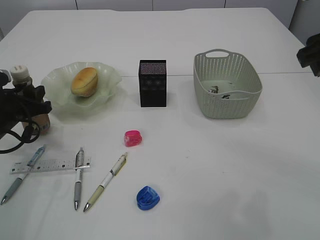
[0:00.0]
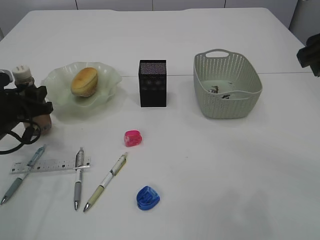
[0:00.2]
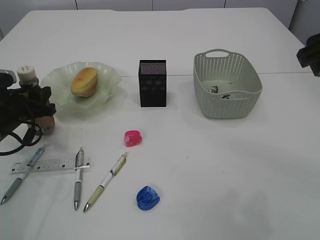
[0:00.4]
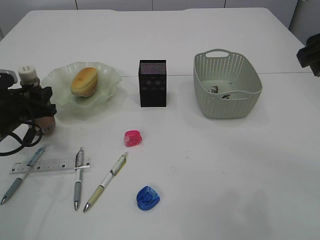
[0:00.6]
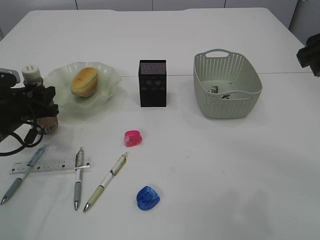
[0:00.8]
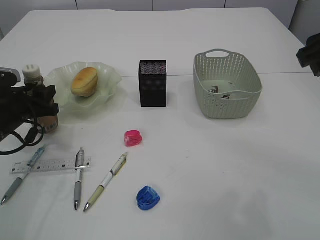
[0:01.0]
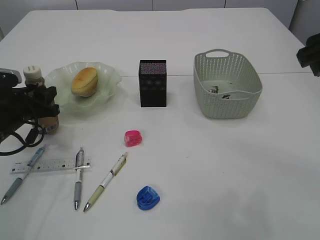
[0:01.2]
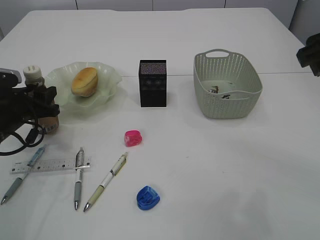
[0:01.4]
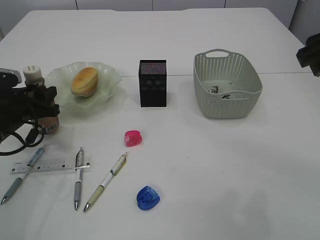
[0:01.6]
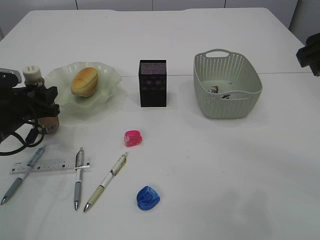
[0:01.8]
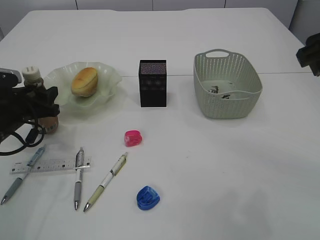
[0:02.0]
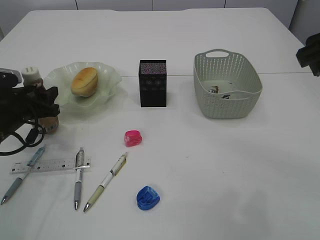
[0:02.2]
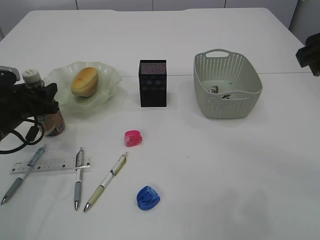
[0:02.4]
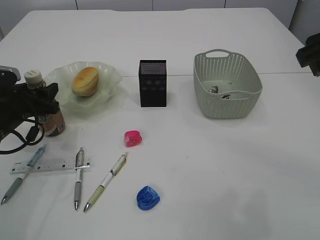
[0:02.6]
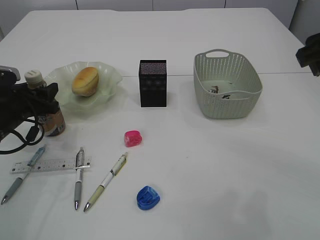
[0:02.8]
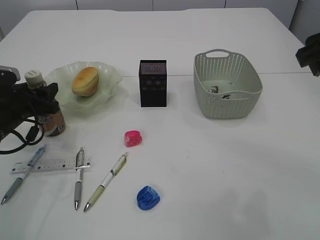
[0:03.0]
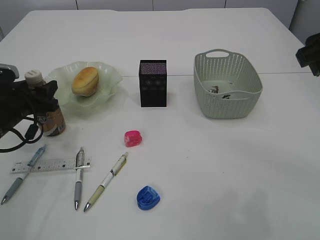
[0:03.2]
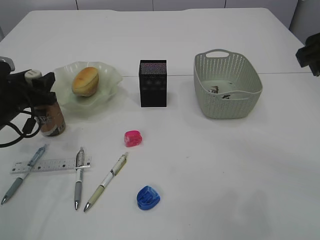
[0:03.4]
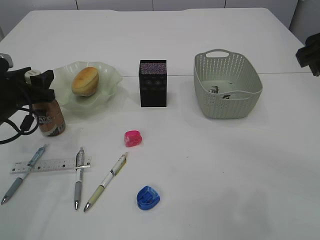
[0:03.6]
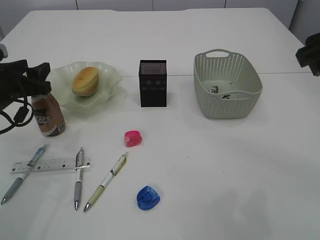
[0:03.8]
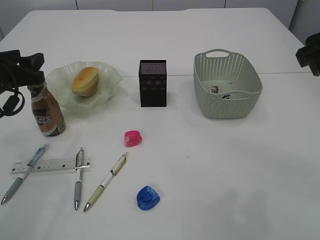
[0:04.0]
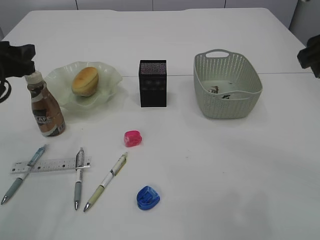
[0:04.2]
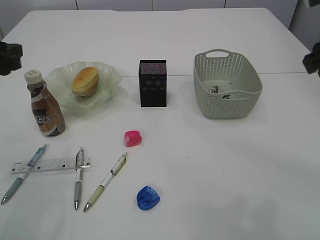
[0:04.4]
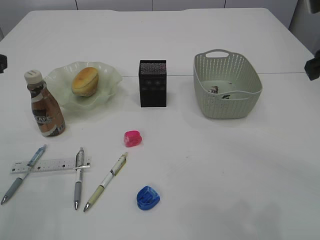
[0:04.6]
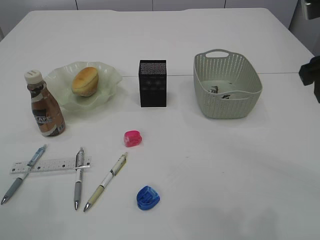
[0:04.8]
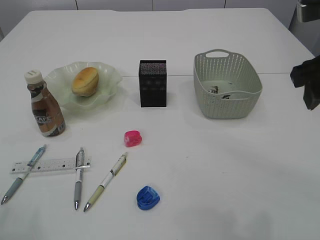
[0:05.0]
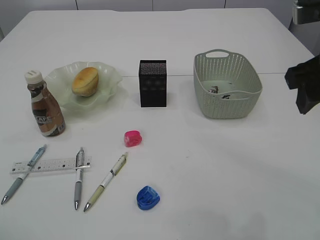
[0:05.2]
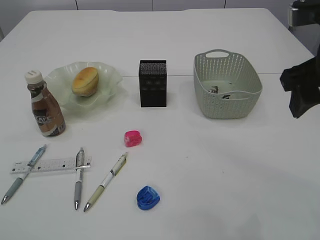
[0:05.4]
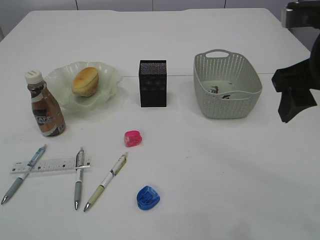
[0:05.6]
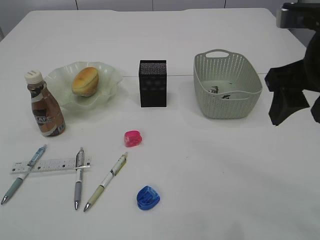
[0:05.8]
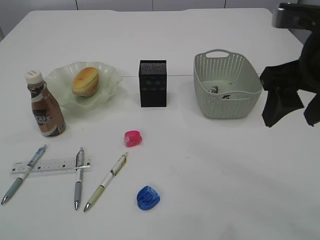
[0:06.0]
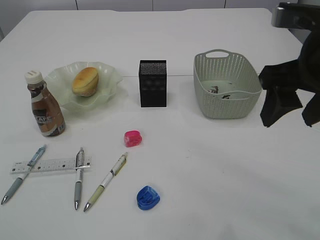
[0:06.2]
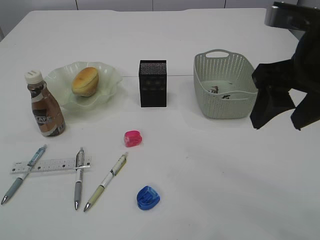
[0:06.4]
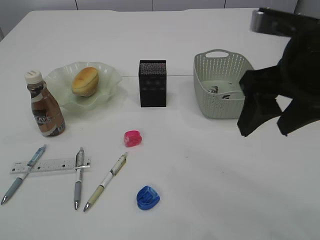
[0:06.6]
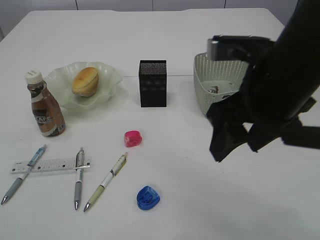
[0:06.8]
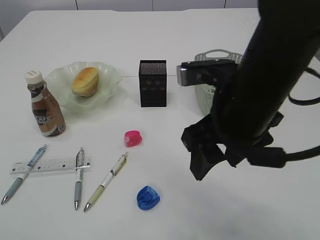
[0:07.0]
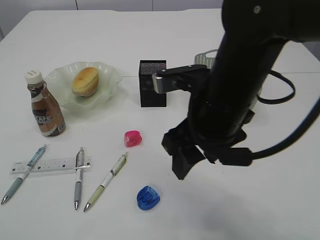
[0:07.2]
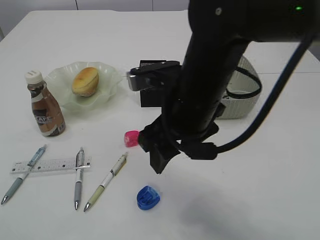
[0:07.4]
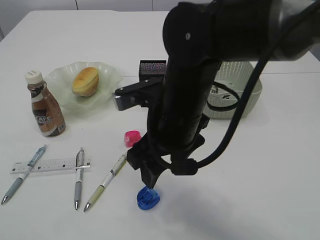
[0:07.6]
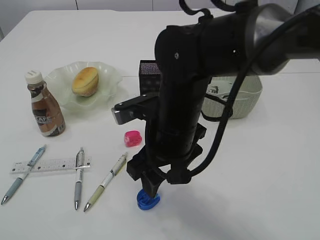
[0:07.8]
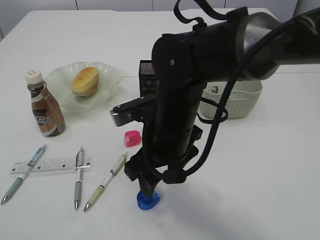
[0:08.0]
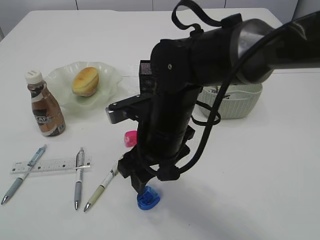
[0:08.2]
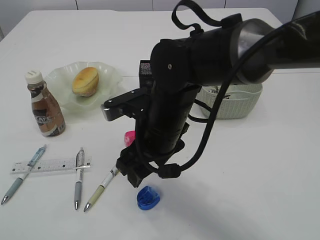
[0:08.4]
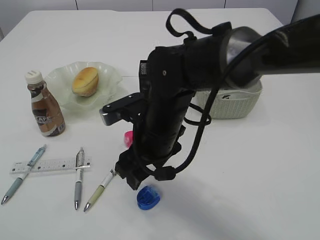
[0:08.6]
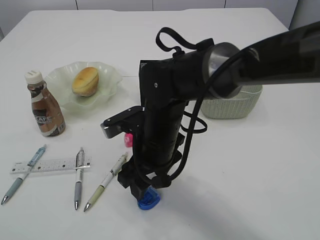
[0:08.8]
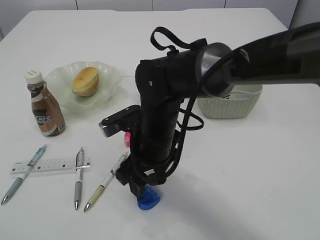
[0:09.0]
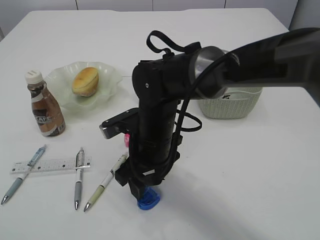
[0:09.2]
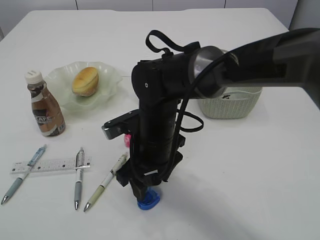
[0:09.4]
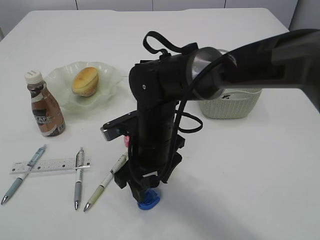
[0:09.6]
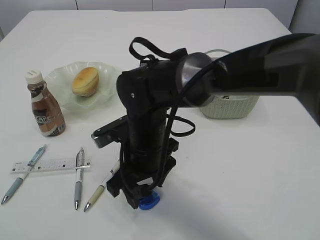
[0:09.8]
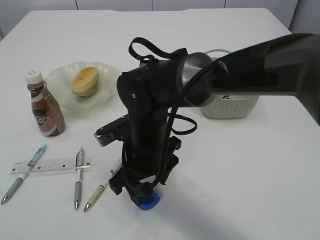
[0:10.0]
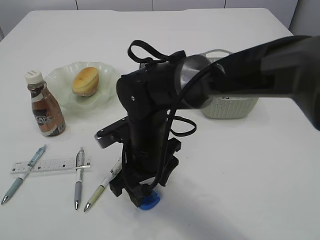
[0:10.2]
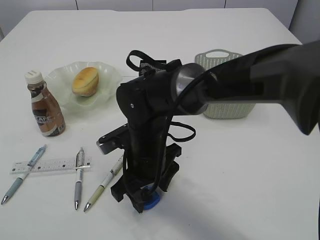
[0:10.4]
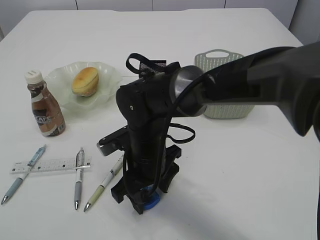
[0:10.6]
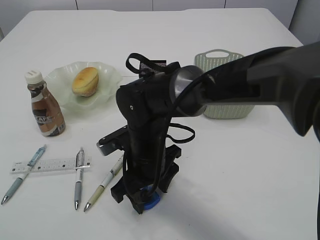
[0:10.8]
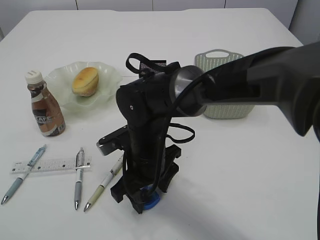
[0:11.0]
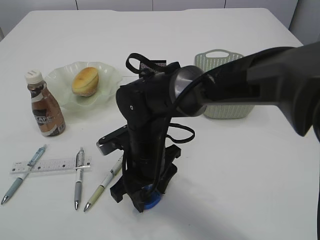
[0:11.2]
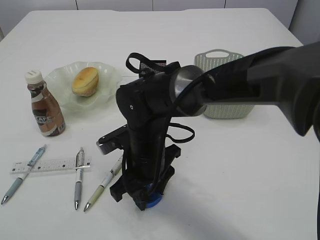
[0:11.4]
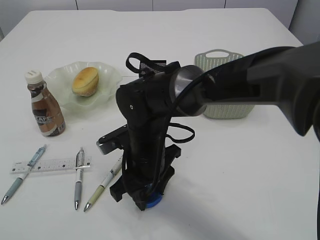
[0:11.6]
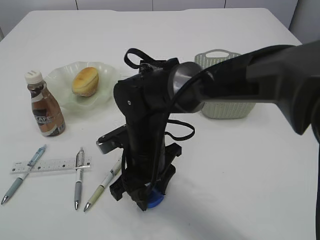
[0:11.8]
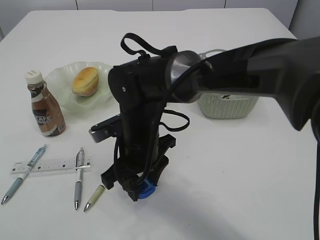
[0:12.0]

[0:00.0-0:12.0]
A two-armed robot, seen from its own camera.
Step, 0:00.0 to 0:04.2: Place the bottle.
0:00.0 to 0:01.6: The grippers stay close to where they were, moving slightly.
0:01.6 to 0:03.0: Both grippers stay about where they are.
0:03.0 to 0:04.4: The left gripper heads upward, covering about 15 cm.
0:04.4 to 0:06.0: The left gripper travels backward by some 20 cm; the right gripper moves approximately 5 cm.
0:06.0 to 0:07.6: The right gripper goes approximately 20 cm to the left and downward.
0:07.6 to 0:09.0: The right gripper moves downward, some 10 cm.
0:09.0 to 0:12.0: The grippers stay close to where they were, moving slightly.

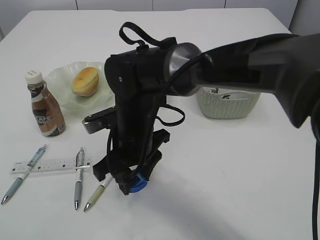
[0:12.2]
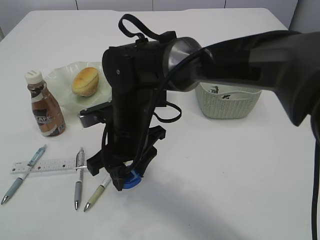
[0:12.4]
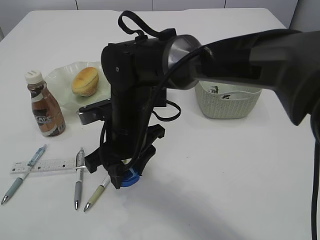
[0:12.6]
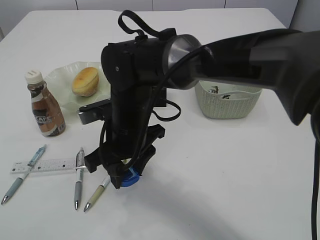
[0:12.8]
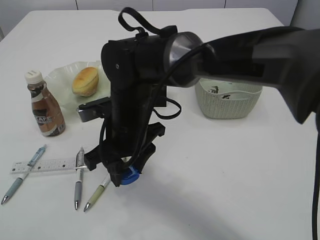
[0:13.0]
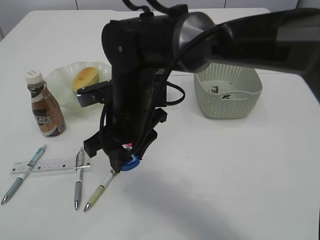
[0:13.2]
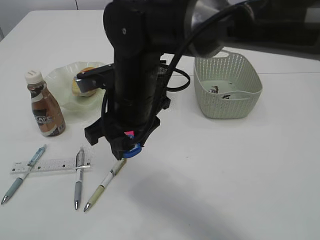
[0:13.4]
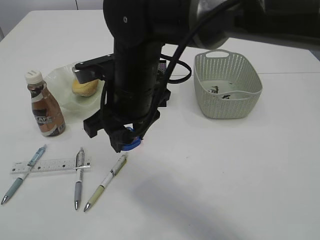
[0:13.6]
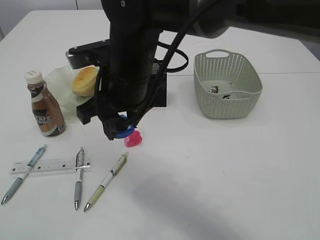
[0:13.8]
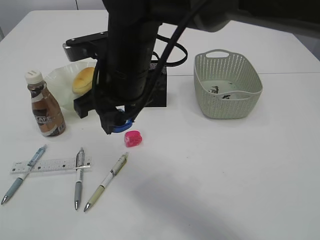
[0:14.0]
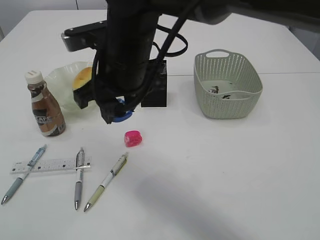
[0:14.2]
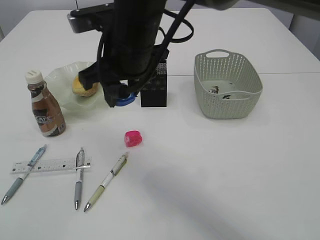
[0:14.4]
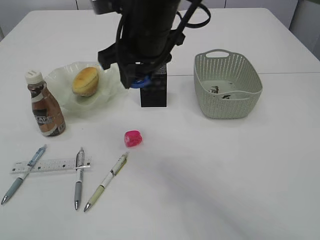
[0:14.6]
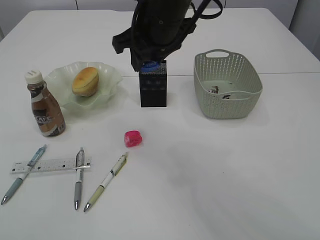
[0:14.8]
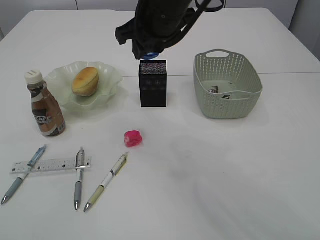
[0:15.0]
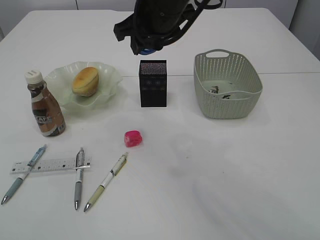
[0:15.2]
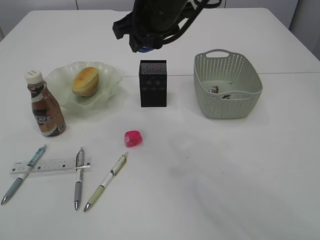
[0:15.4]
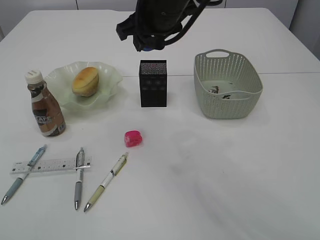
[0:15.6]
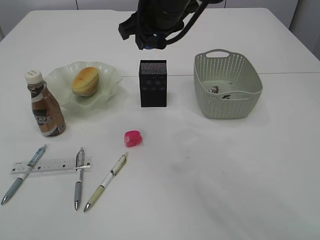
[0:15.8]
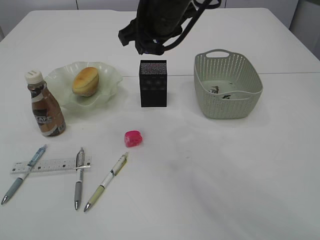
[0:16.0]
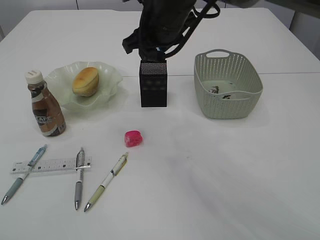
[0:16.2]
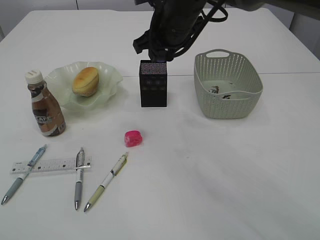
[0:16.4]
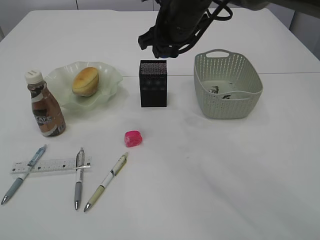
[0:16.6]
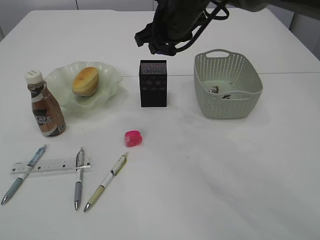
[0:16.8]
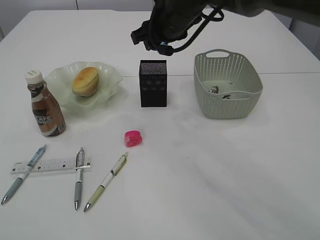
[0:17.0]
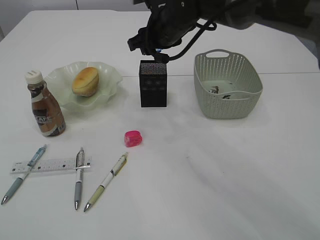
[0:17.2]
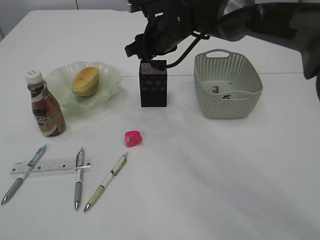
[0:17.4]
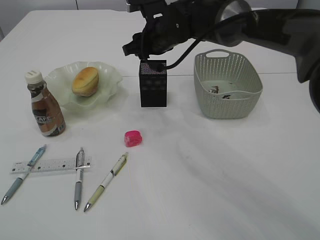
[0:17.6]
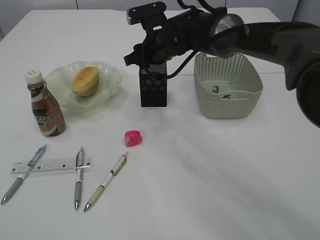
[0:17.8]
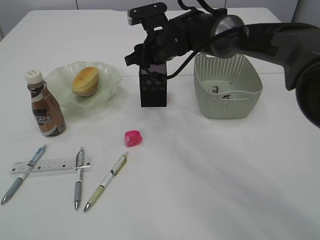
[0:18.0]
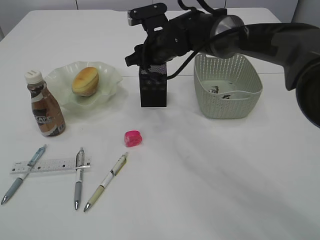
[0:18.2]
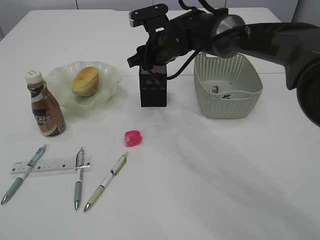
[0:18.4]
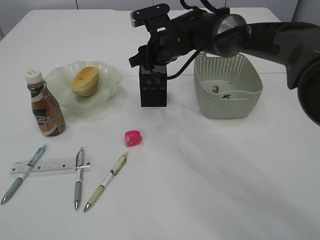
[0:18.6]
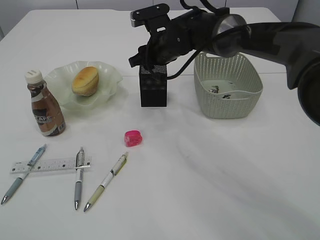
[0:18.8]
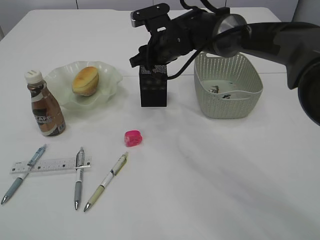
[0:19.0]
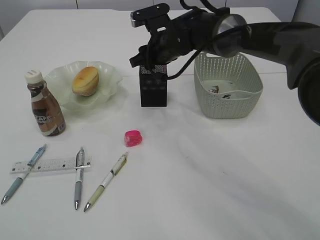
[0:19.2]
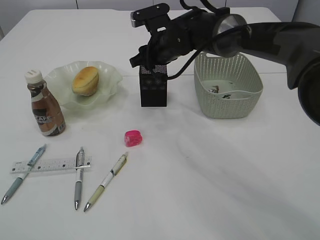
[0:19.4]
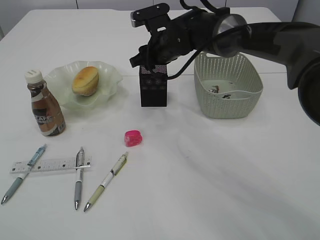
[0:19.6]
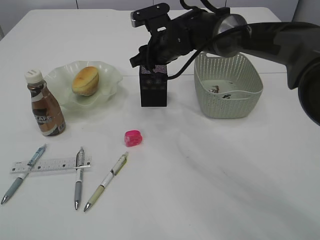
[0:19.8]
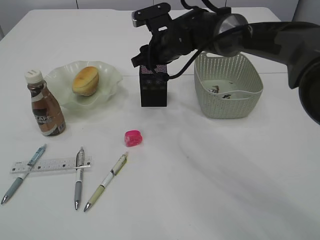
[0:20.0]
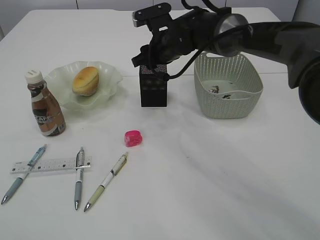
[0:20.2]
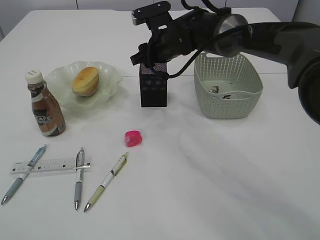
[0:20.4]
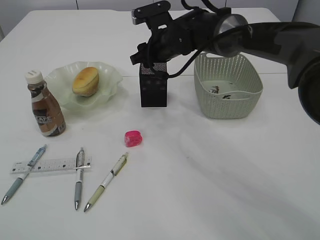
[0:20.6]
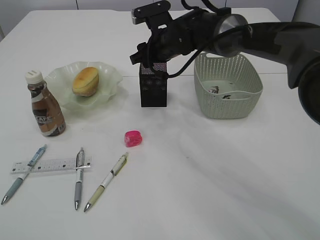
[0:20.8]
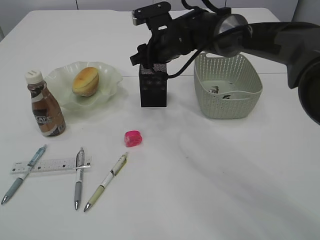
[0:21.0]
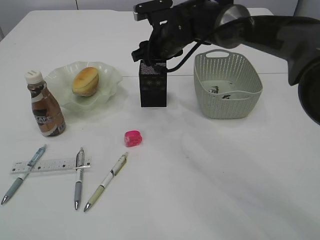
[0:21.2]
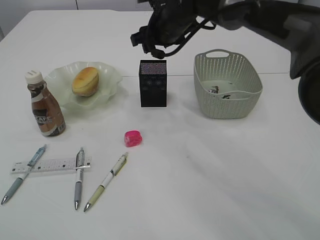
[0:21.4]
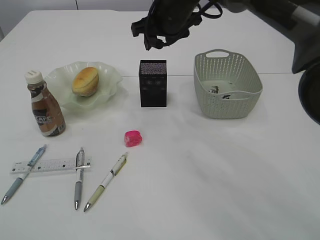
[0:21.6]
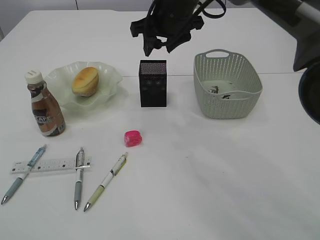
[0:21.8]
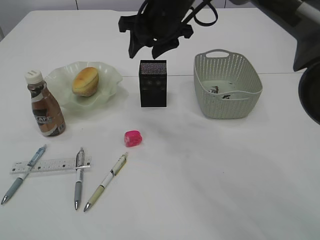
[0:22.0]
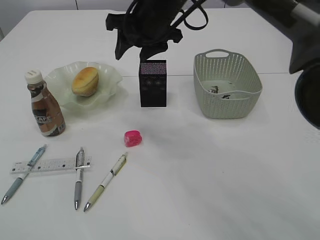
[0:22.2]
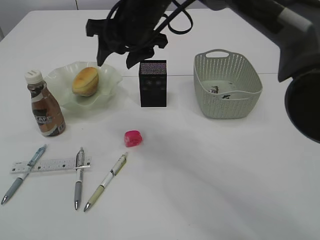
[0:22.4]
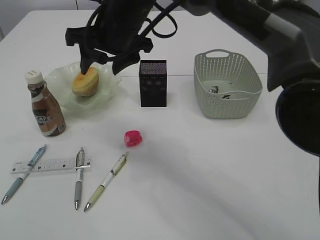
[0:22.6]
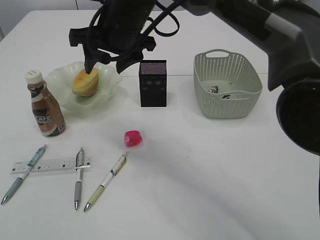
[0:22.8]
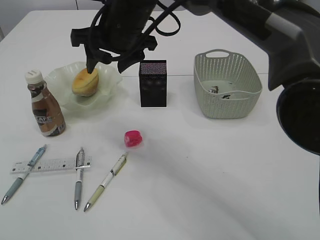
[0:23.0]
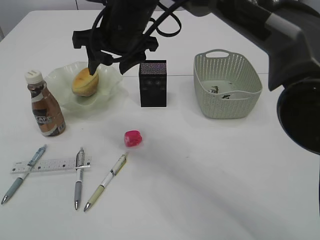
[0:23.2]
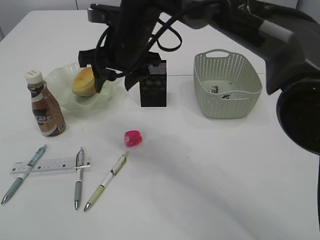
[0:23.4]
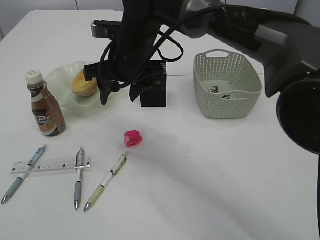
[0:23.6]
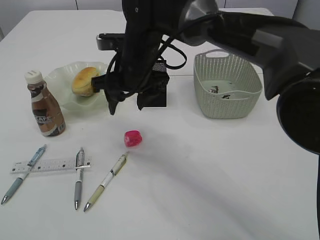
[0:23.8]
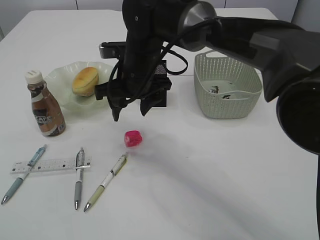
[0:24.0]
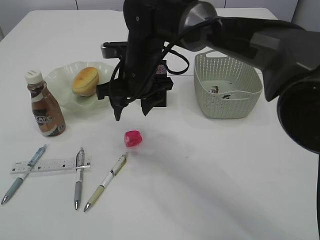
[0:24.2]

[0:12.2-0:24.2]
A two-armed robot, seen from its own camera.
Step, 0:13.2 to 0:22.0: Place the blue pencil sharpener into the pen holder.
0:12.2 to 0:13.8: The right gripper travels upward by approximately 10 cm.
0:13.8 to 0:15.2: The right gripper goes about 10 cm forward, upward and to the right.
0:15.2 to 0:16.6: The right gripper shifts by some 5 cm.
0:16.6 to 0:18.2: The right gripper travels downward by some 10 cm.
0:18.2 to 0:19.8: The two grippers keep their place.
0:19.8 to 0:21.2: Both grippers stay about where they are.
0:21.2 to 0:22.6: The right gripper shifts some 15 cm backward, to the left and upward.
0:22.6 to 0:24.2: The right gripper goes about 10 cm downward.
